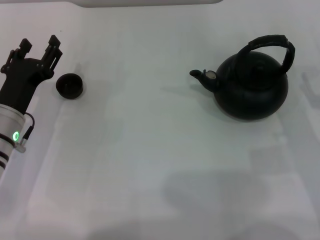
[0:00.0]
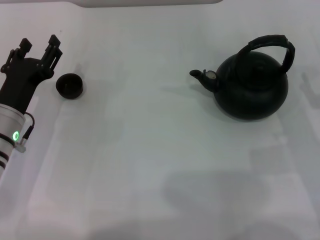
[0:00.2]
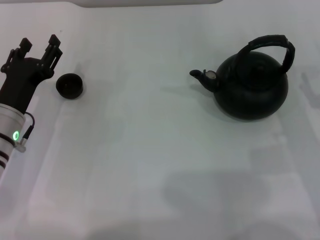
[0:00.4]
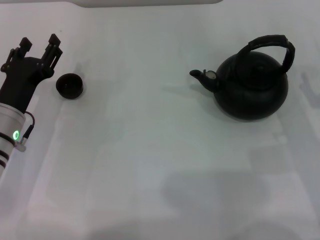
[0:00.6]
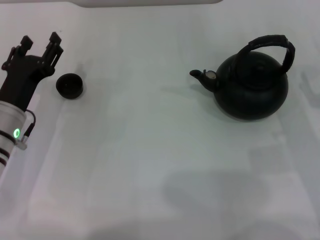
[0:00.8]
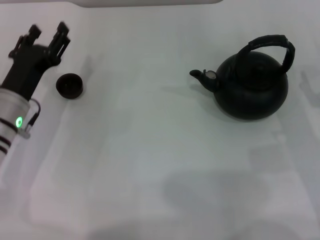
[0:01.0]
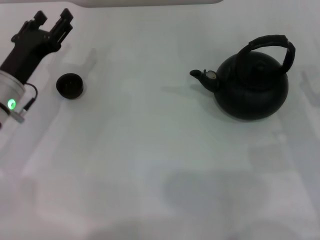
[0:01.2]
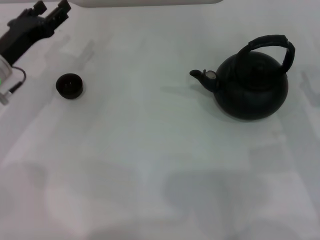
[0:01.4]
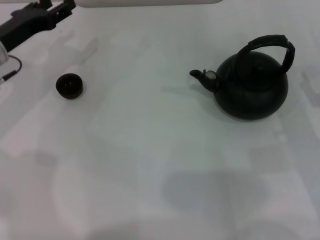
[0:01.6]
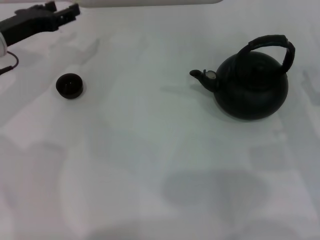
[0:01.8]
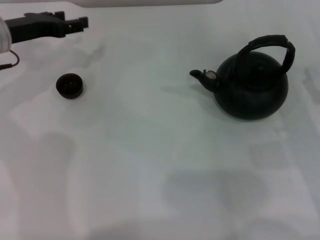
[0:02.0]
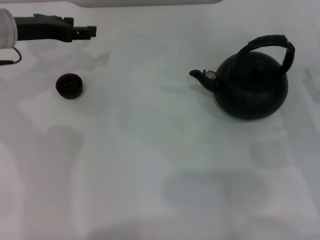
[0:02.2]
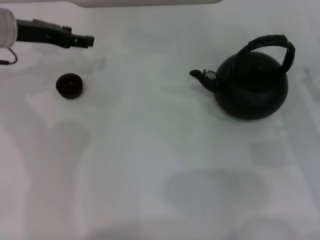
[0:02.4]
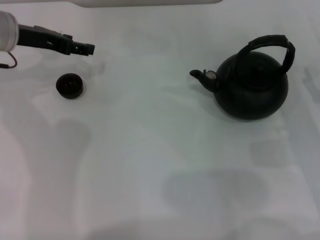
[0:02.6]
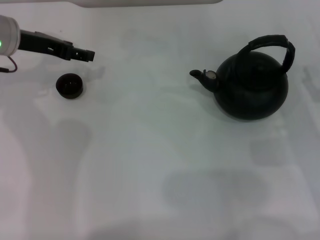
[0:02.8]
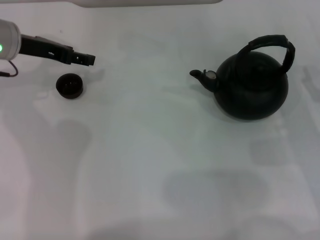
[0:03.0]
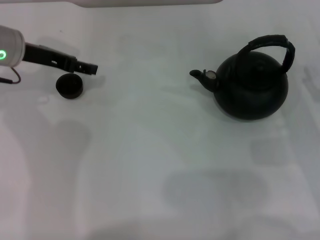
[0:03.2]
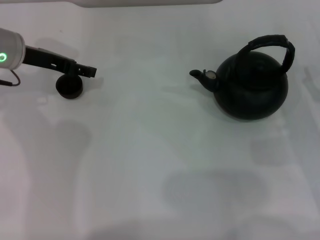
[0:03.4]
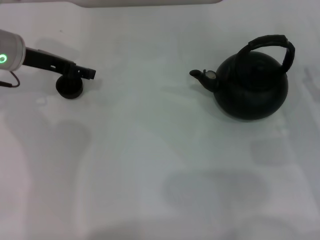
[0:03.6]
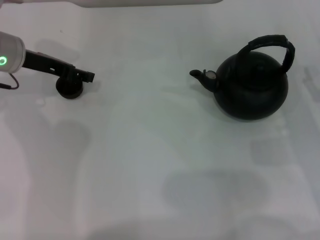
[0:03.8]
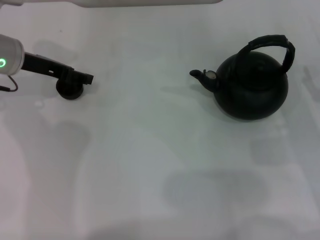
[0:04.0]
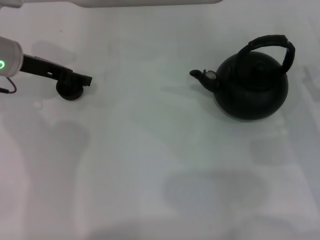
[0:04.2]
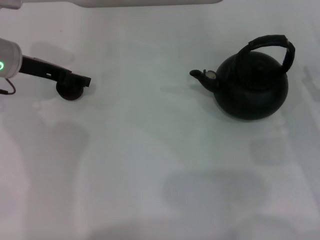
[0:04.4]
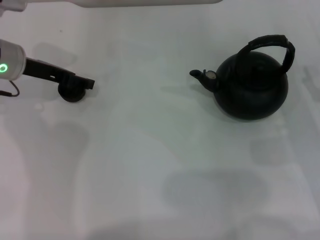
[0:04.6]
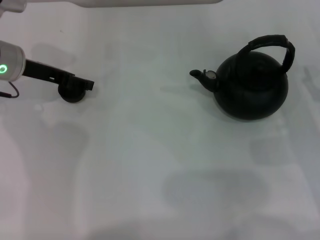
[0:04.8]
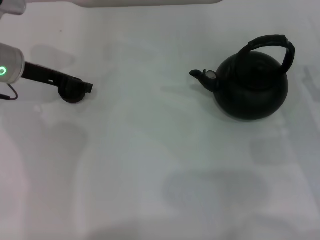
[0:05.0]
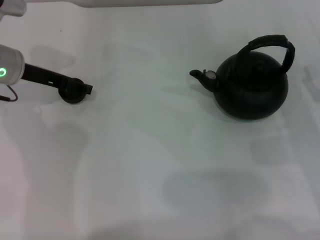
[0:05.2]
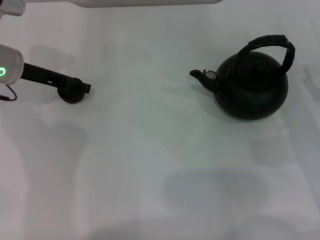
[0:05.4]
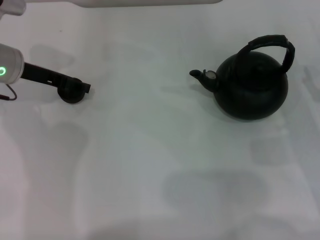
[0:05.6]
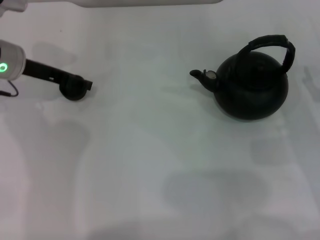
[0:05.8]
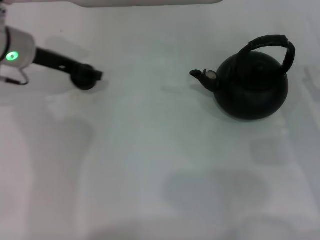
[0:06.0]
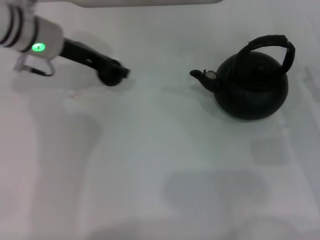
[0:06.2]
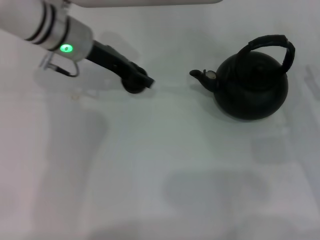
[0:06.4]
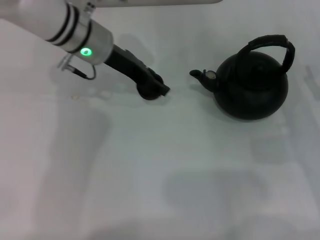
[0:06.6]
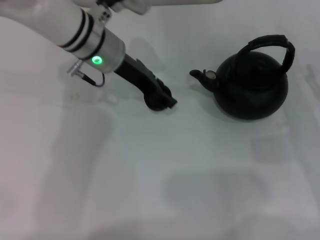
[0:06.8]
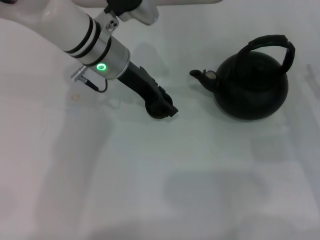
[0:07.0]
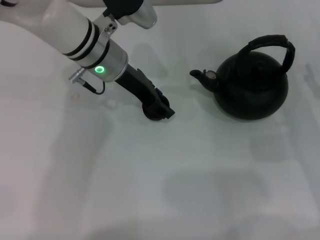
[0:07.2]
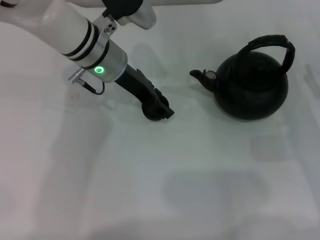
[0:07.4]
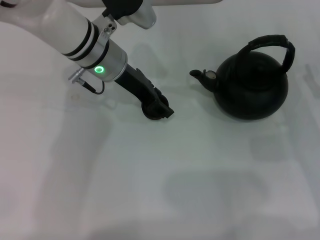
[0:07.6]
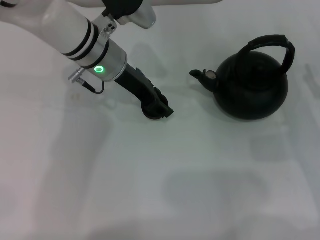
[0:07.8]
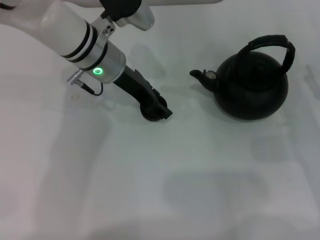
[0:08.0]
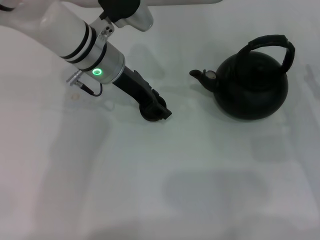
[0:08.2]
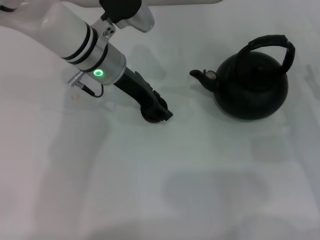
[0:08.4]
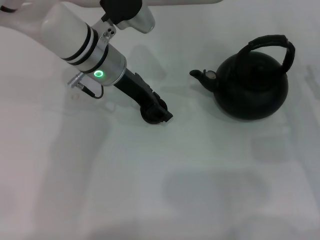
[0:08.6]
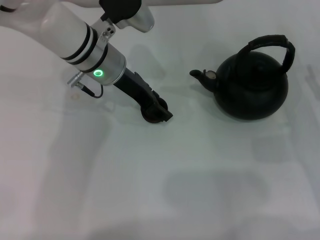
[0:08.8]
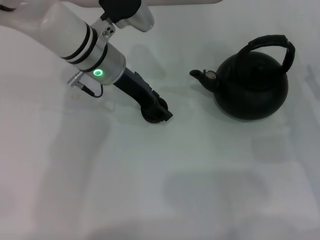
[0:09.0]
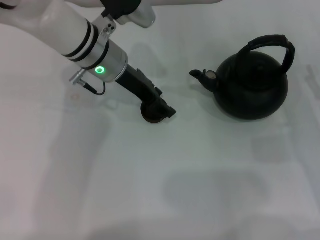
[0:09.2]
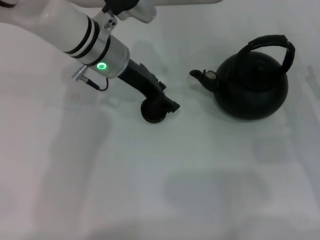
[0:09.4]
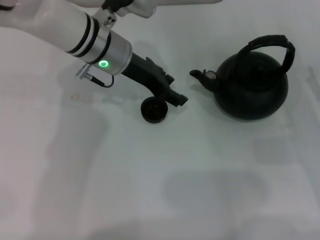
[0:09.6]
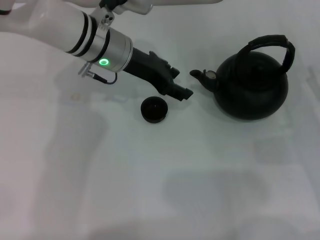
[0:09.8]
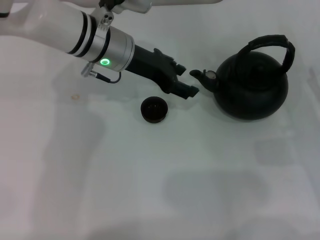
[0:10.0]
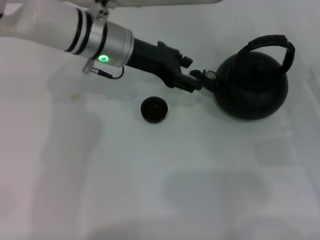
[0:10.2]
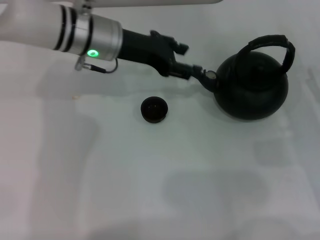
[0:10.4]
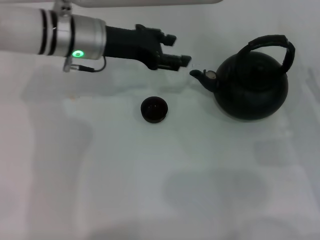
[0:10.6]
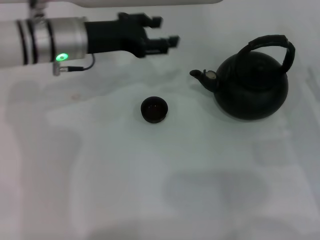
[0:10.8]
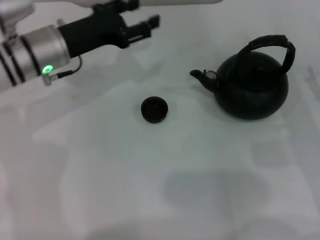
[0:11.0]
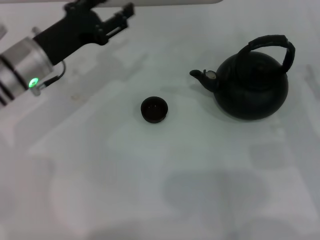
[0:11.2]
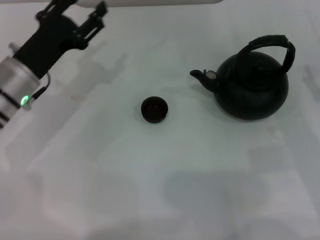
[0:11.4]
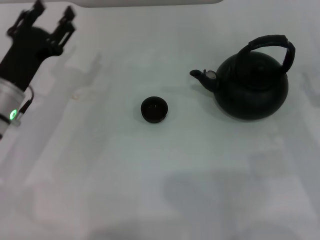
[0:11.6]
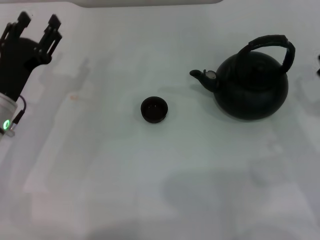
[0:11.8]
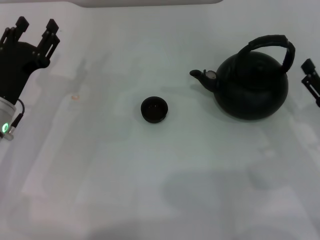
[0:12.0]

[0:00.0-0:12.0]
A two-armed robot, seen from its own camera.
Task of the whole recording: Grasp the handle of the teapot with one hand and pour tea into the teacup.
Step, 0:00.0 to 0:05.8: Pick up the teacup with the left gripper.
Step, 0:06.0 to 0:09.8: Place the teacup in the center of view with the left gripper.
0:00.0 to 0:01.6: The left gripper travels forward and upward by roughly 10 cm.
0:01.6 to 0:03.0: The left gripper moves some 5 cm.
0:03.0 to 0:06.0: The grippers make only small movements.
0:06.0 to 0:07.6: The left gripper is displaced to the right by about 15 cm.
0:07.6 to 0:09.0: Both grippers stay put.
0:10.4 to 0:12.0: The left gripper moves to the left, backward and downward, approximately 20 cm.

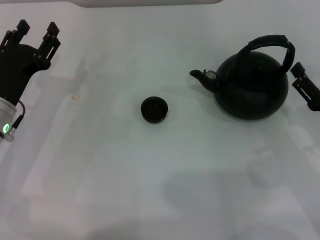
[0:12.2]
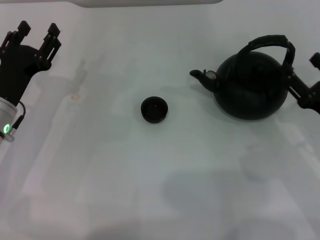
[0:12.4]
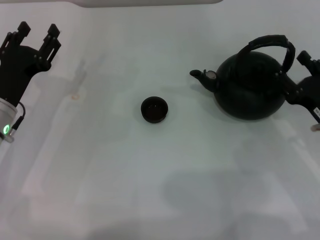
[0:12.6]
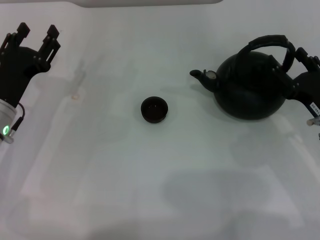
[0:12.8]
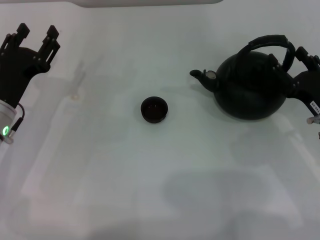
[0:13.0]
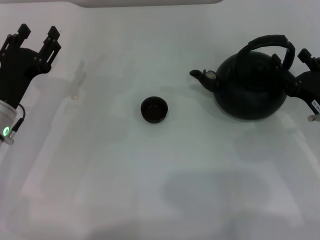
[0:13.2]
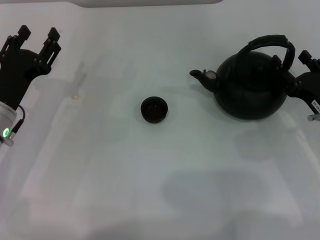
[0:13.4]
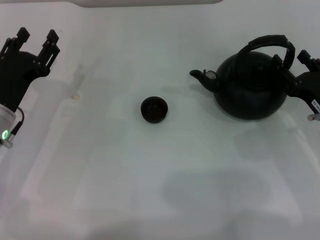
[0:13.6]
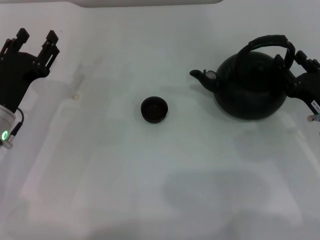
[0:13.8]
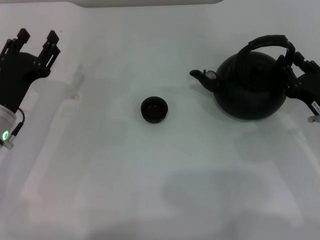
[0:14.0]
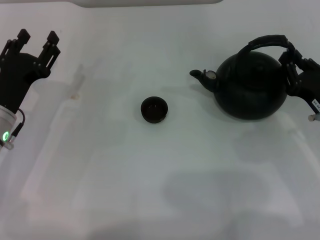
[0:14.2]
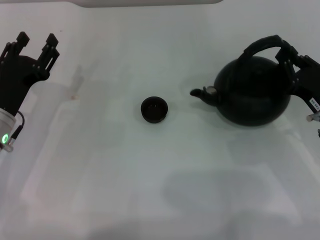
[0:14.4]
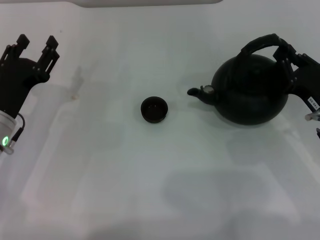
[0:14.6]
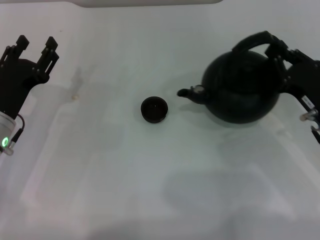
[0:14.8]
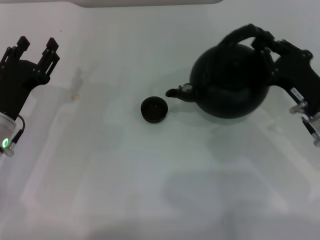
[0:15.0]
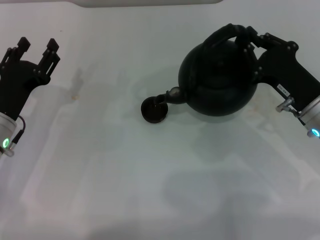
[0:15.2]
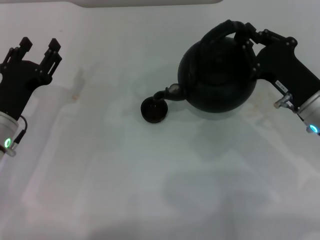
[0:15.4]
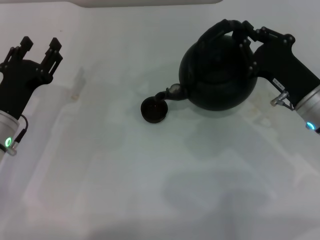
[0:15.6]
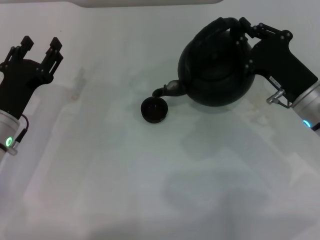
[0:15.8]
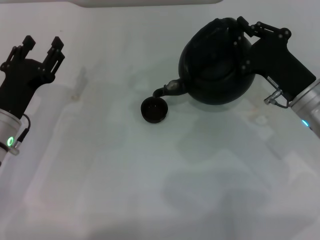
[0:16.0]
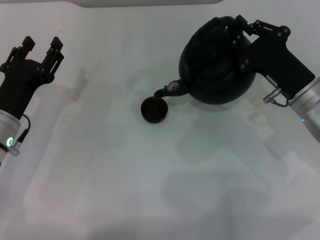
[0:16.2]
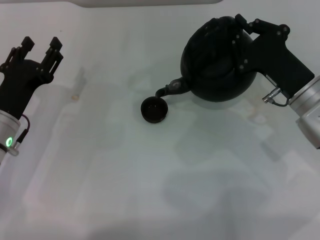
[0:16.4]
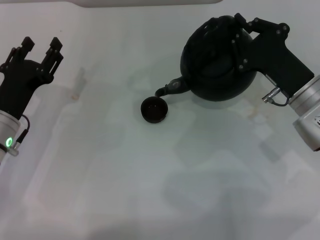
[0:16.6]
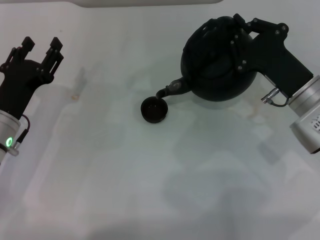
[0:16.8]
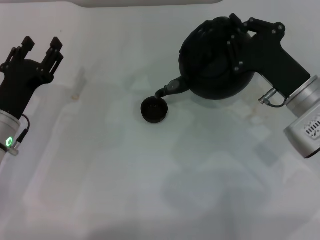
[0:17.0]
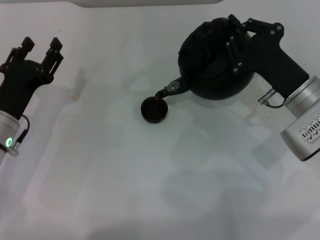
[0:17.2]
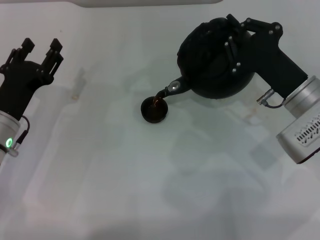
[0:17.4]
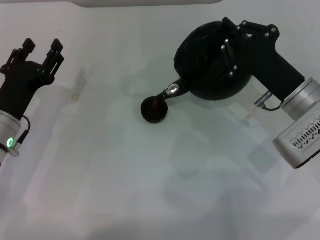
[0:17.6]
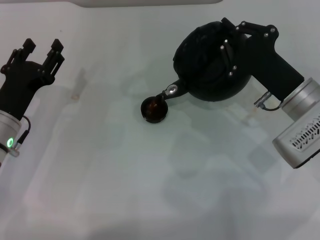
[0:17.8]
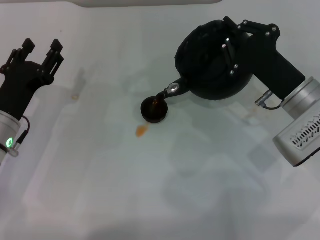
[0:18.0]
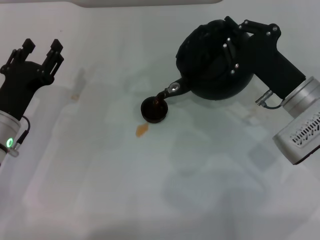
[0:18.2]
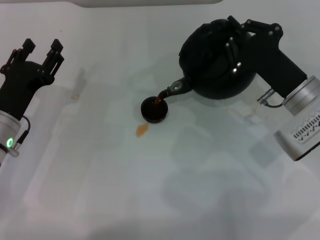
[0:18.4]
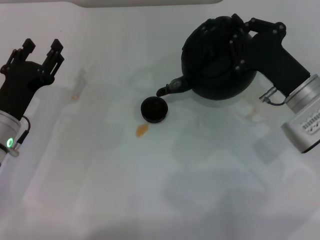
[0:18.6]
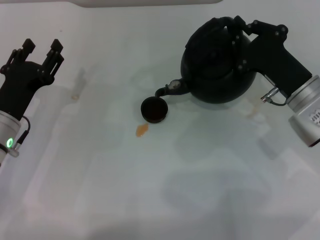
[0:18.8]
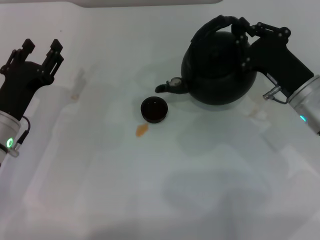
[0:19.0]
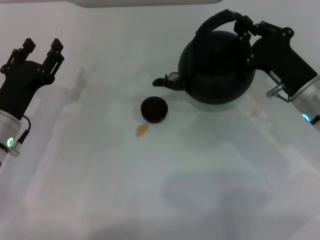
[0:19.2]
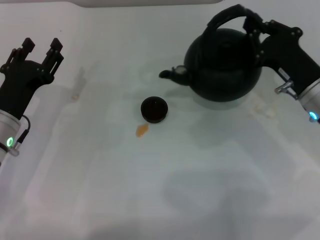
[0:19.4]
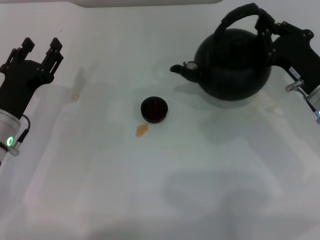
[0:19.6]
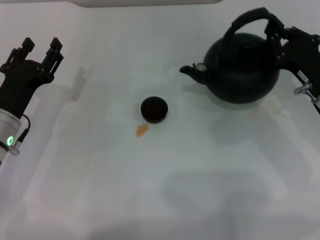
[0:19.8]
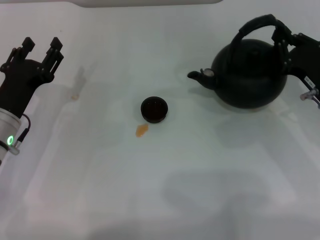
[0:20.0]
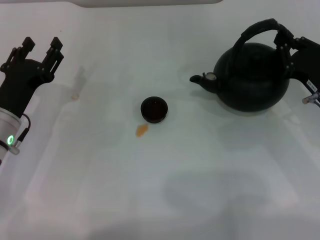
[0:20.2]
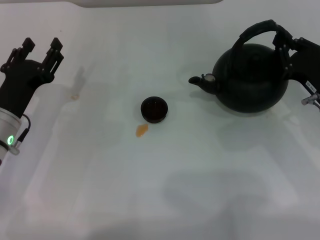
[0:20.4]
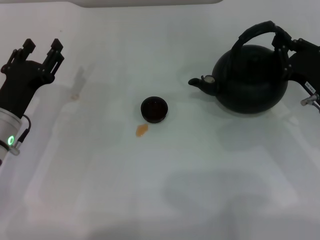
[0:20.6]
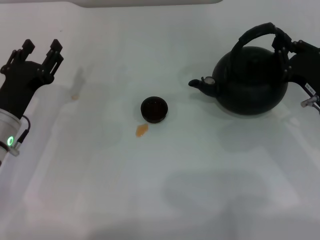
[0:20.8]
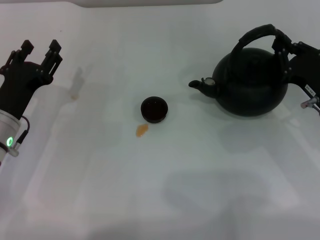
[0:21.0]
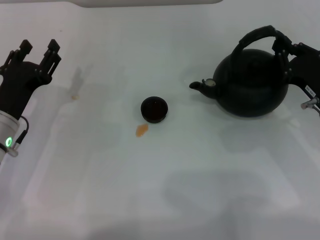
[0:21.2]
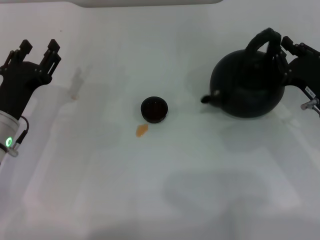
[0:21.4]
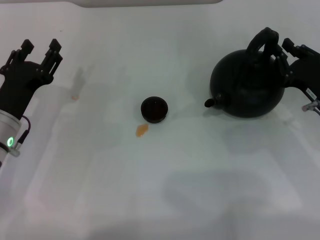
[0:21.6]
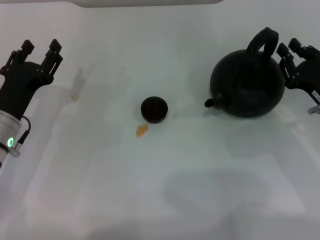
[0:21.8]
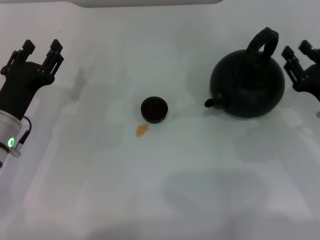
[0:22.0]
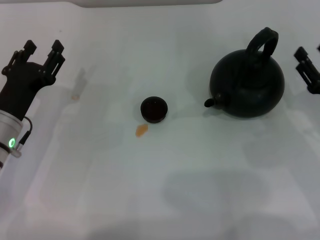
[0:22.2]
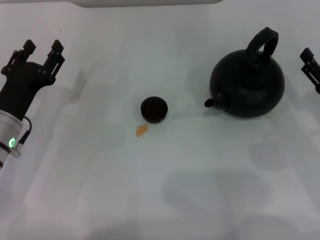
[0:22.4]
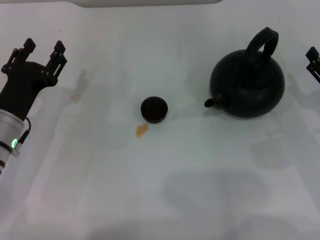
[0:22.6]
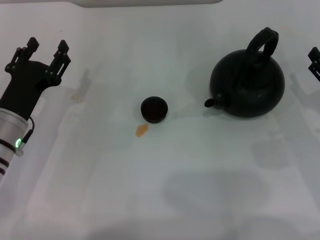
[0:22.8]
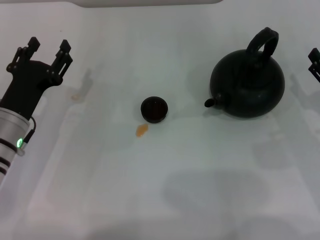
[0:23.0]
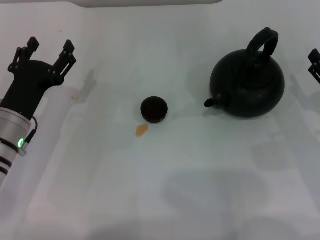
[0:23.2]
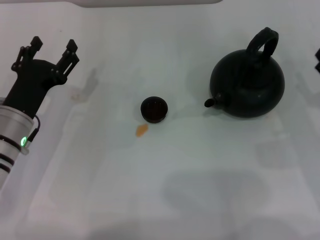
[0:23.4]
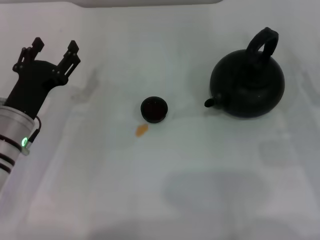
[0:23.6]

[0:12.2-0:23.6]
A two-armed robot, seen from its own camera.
Task of the whole recording: Grasp the handle of the teapot with one hand and pour tea into the teacup.
Step, 0:12.2 to 0:14.8: Pick up the teapot with the right gripper.
Step, 0:15.0 to 0:19.2: Pour tea into the teacup with the right gripper.
Step, 0:19.6 to 0:21.6: Put down the teapot with the right gripper.
0:12.2 to 0:13.6: There are only small adjustments of the grippers.
0:13.6 to 0:15.0: The right gripper closes up.
0:16.4 to 0:17.8: There are only small adjustments of the grippers.
0:19.4 to 0:20.8: The grippers move only a little.
0:20.8 to 0:22.2: The right gripper opens up.
0:22.2 to 0:23.6: The right gripper opens up.
